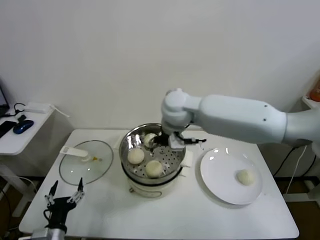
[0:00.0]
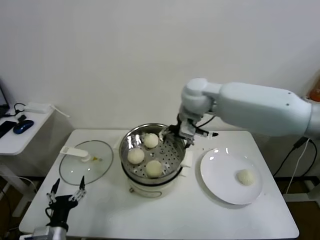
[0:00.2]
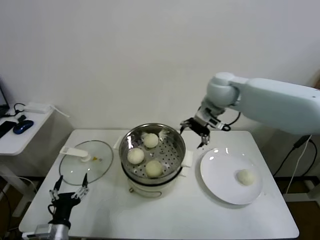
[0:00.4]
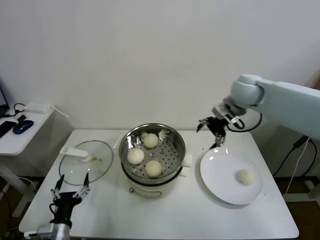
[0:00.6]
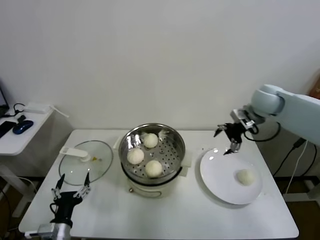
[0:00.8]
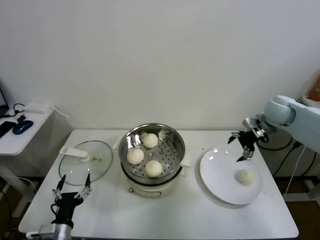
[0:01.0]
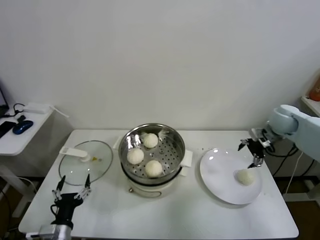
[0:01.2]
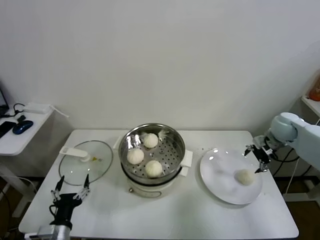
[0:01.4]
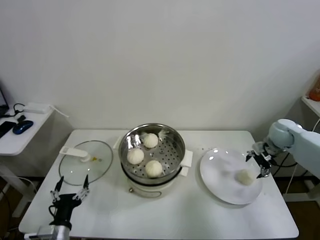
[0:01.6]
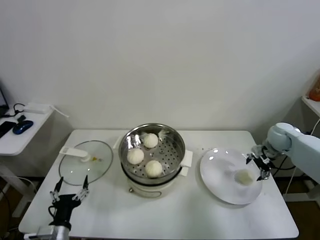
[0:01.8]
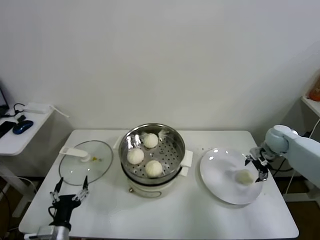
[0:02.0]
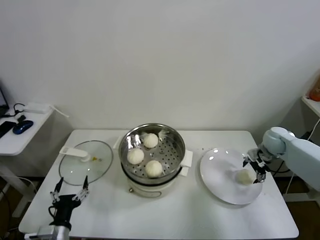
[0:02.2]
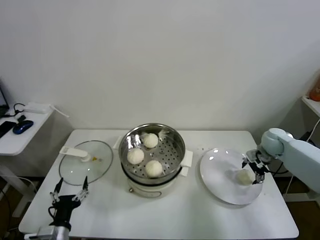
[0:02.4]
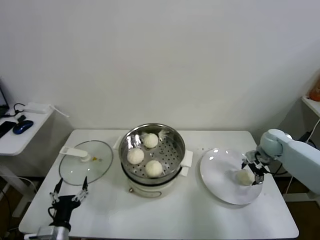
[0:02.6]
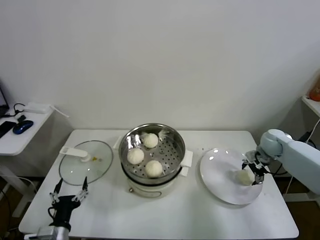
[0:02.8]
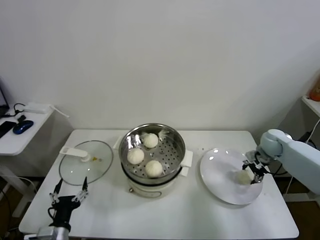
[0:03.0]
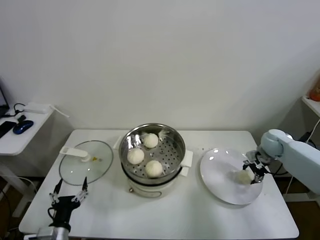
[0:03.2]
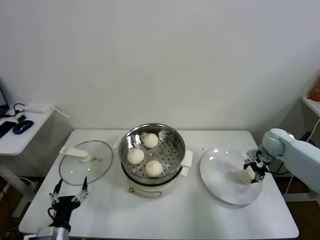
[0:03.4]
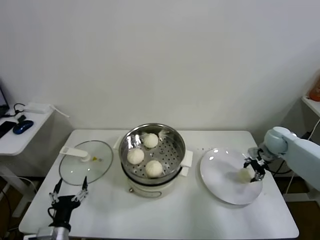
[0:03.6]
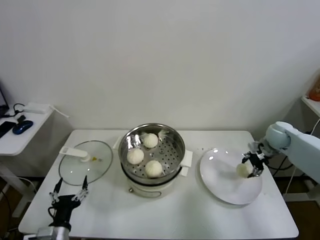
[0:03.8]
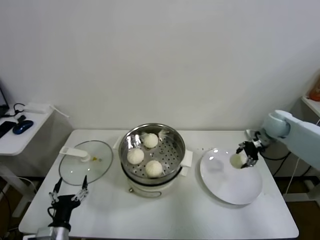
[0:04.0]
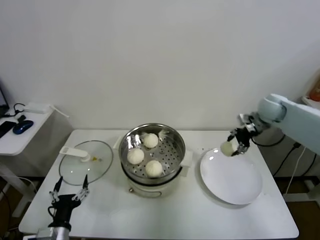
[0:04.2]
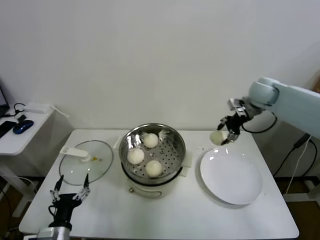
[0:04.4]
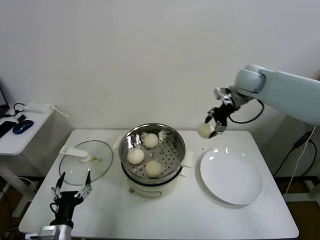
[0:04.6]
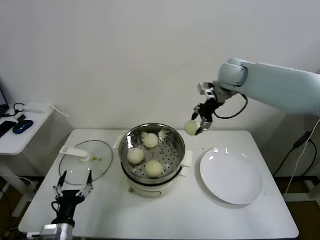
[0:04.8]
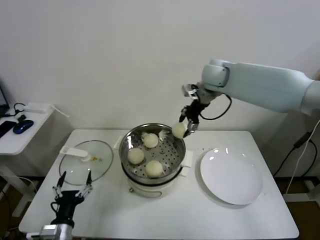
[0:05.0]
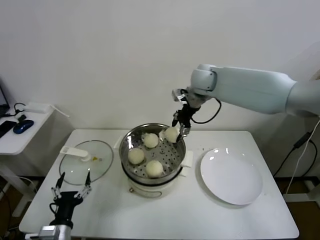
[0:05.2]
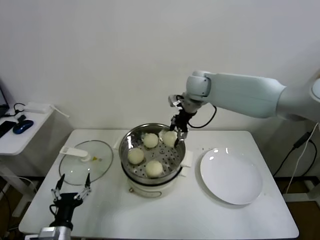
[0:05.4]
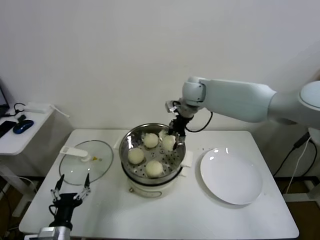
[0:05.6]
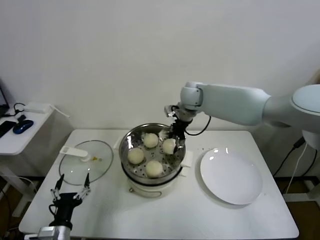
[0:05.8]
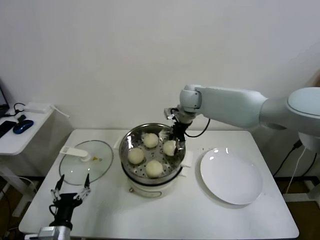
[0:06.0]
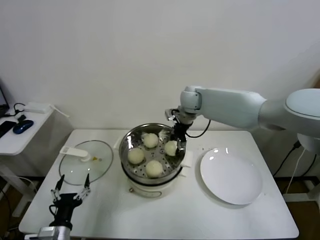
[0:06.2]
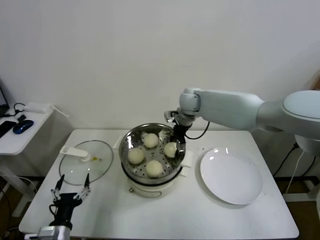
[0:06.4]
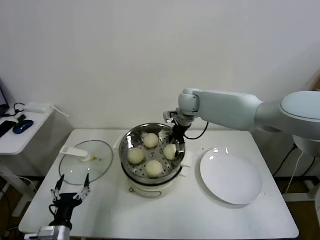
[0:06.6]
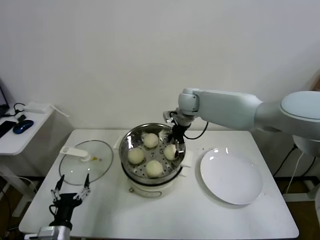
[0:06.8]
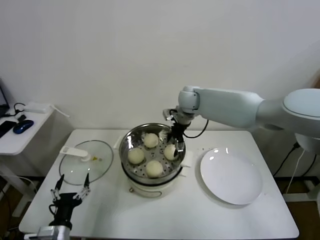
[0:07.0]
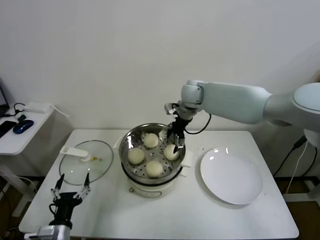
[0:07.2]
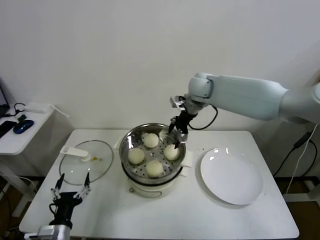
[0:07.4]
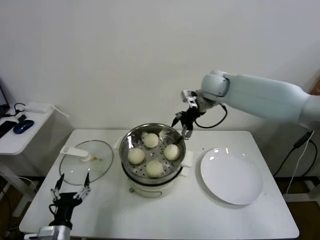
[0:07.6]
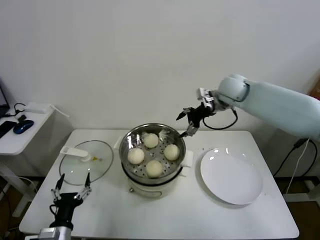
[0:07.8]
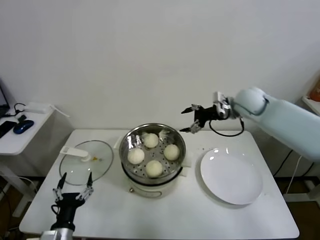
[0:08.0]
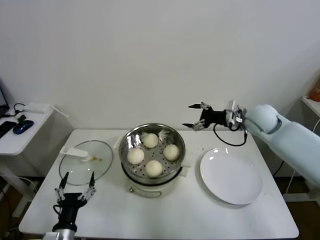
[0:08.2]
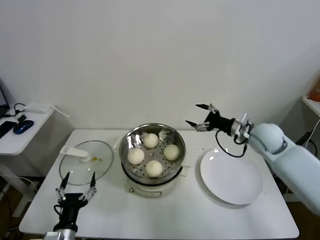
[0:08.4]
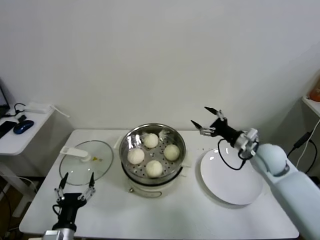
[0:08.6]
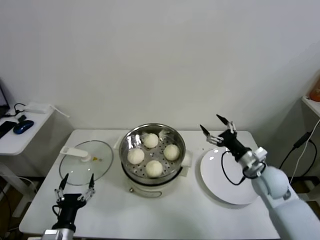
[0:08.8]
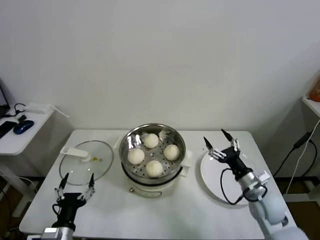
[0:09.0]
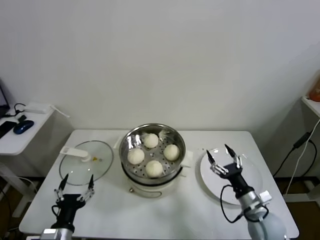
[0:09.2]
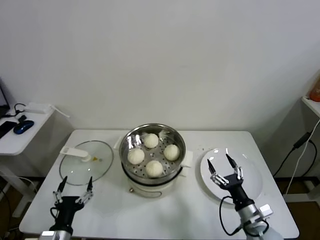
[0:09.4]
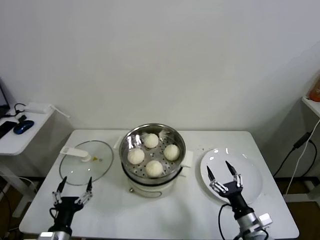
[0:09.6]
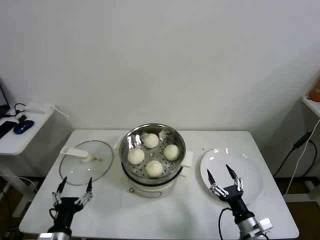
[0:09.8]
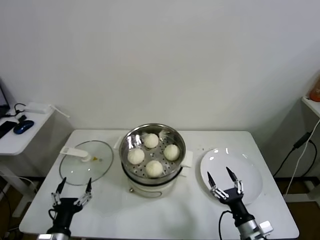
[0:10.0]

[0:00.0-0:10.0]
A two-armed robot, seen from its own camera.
Task of the whole recording: take steamed baozi put them in steamer.
Step, 0:00.0 to 0:03.2: Grasp the baozi in the plate with right gripper.
Step, 0:03.4 to 0:07.0: Place the baozi on the steamer with right gripper.
0:00.0 to 0:01.4: The right gripper heads to the right, covering approximately 40 cm.
0:01.4 to 0:02.8: The right gripper travels downward by about 10 cm.
0:02.8 to 0:04.2: The right gripper goes roughly 15 cm upward, and closes its fingers.
0:04.2 to 0:05.8: The right gripper travels to the left by approximately 30 cm.
0:05.8 to 0:07.2: The right gripper opens its fingers.
0:07.2 to 0:08.6: The right gripper is displaced to the right, backward and downward by some 30 cm.
0:08.6 to 0:10.0: The right gripper shifts some 30 cm backward and downward.

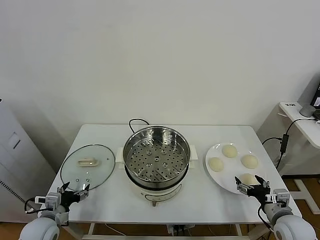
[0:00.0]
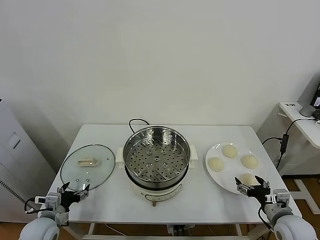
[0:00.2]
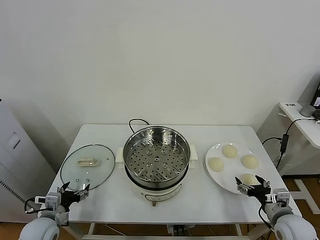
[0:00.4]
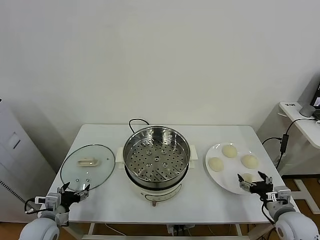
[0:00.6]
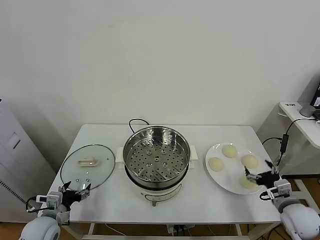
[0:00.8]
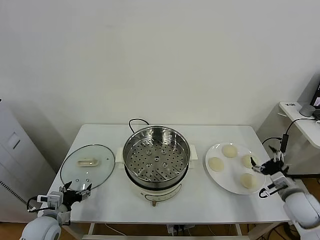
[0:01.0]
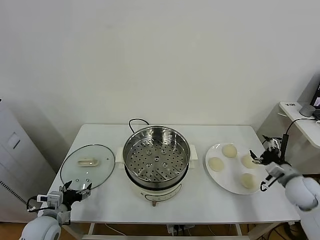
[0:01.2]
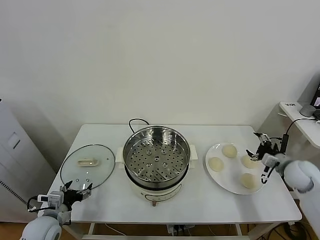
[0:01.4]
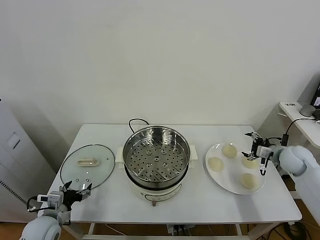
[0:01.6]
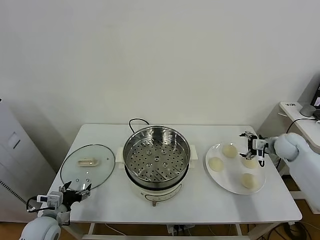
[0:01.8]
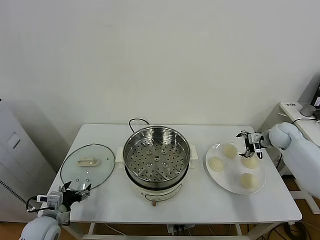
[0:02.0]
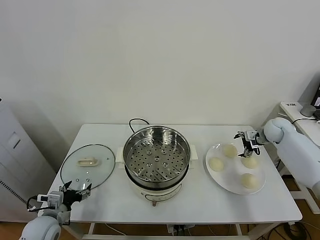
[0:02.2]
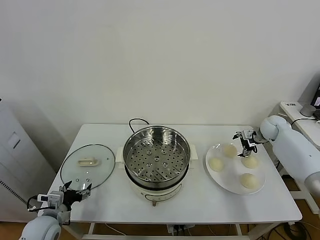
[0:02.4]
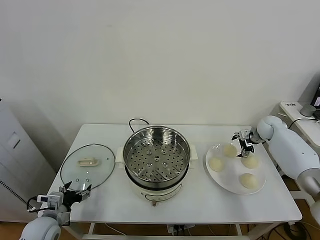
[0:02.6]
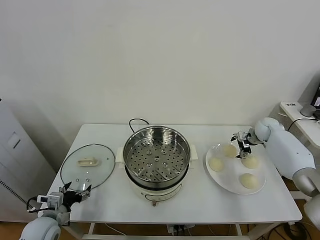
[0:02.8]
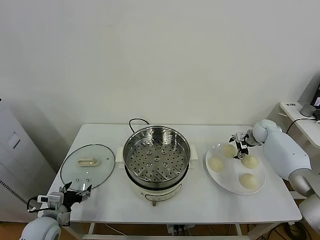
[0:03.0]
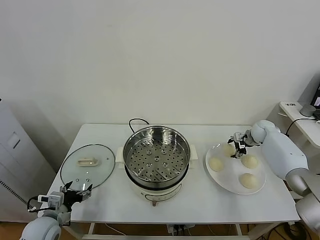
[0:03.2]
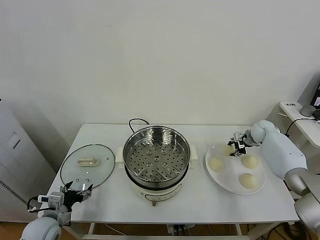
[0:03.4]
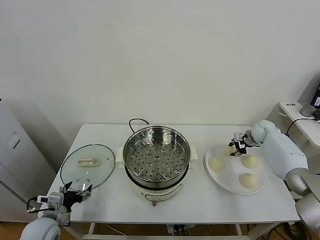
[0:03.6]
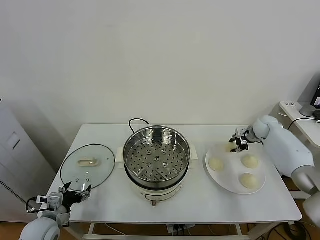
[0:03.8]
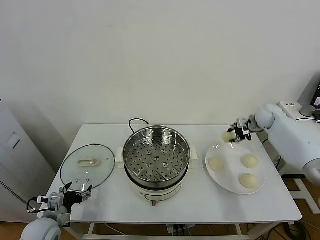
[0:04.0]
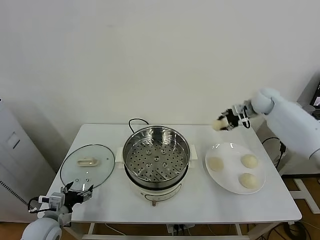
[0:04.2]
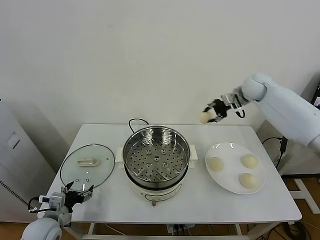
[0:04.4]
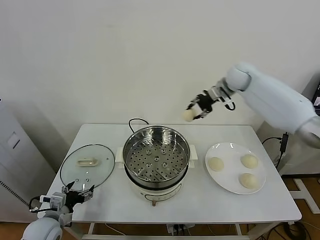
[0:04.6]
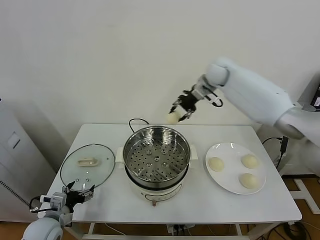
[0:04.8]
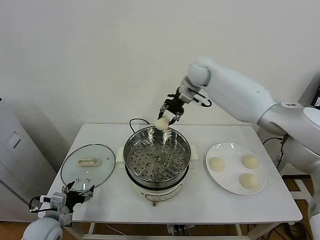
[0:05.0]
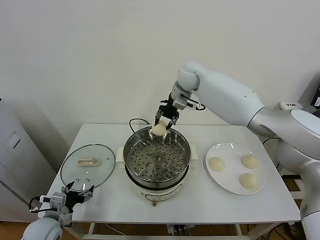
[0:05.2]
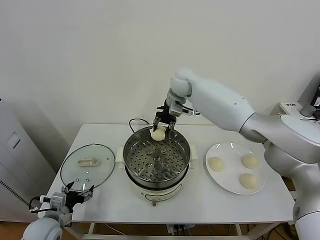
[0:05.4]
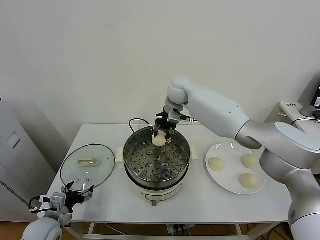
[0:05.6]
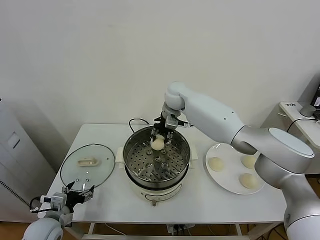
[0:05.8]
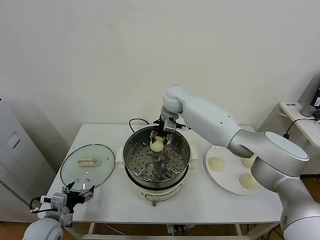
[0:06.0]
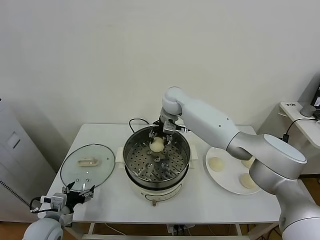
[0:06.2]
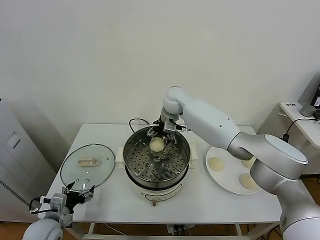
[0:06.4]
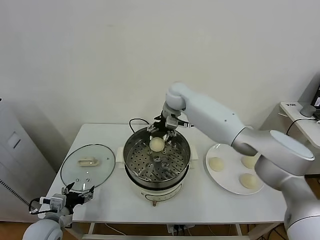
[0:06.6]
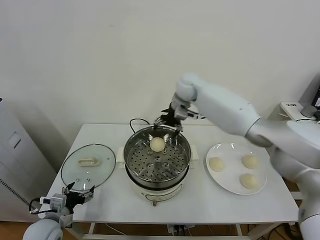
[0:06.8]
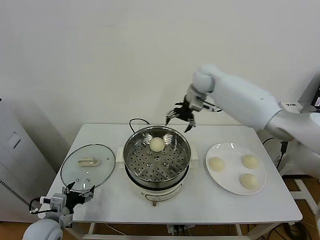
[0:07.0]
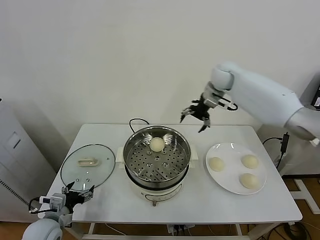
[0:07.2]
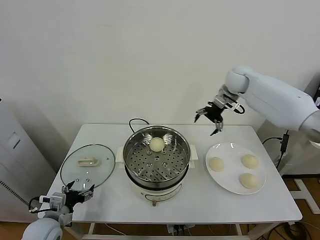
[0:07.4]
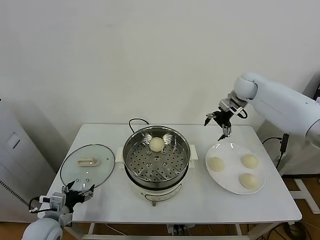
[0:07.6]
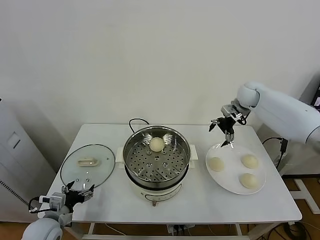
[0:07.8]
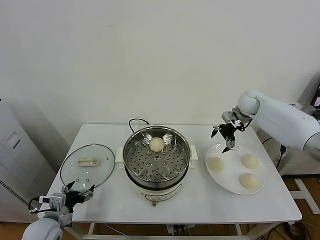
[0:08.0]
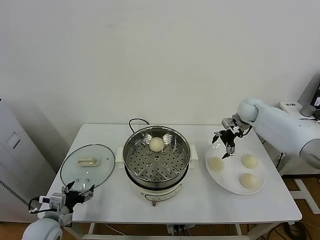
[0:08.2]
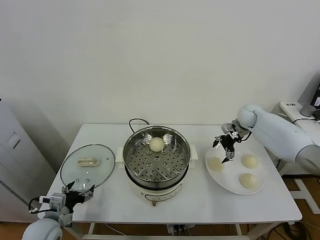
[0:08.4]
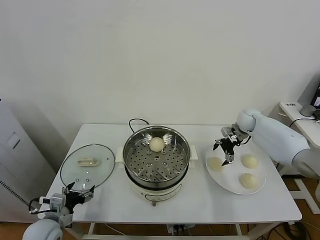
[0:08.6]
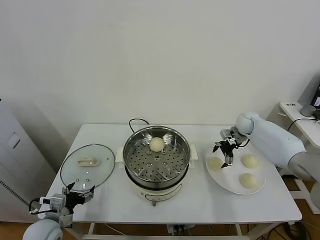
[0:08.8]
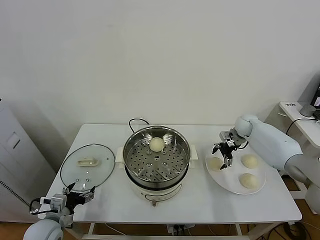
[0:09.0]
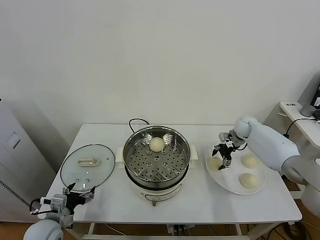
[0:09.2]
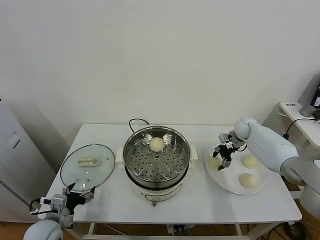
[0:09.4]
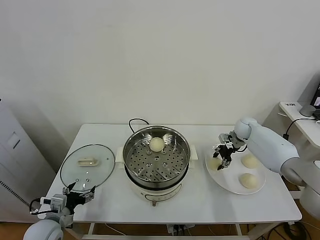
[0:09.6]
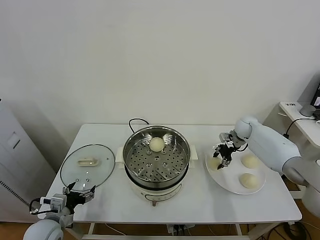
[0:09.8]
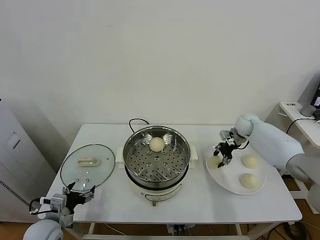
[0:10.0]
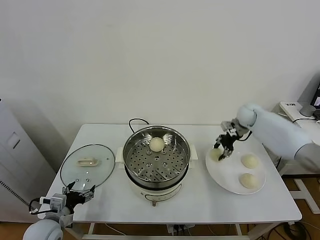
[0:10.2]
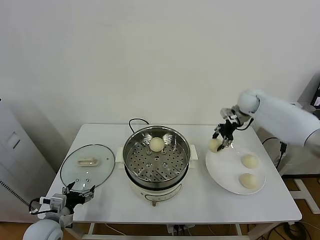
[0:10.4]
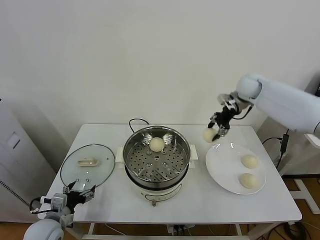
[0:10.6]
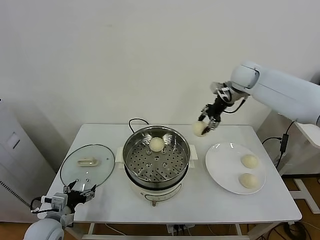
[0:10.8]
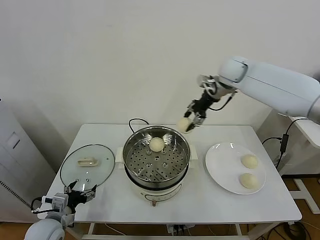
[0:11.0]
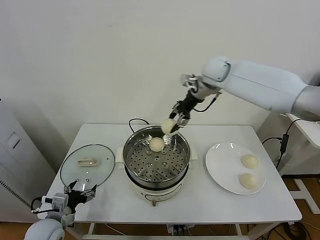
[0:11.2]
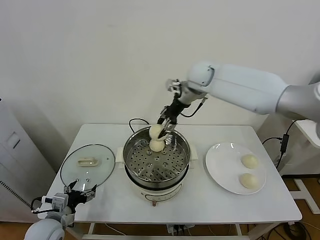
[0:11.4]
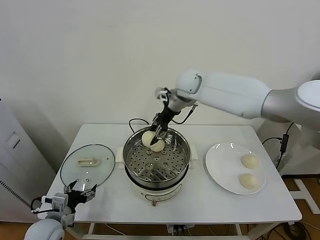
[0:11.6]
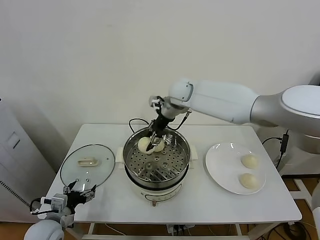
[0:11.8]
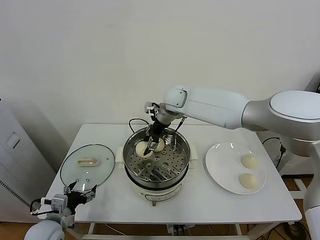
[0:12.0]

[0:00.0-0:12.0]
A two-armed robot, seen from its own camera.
Task of the whole recording: take steamed baozi put them in steamer.
Step, 0:00.0 to 0:03.4: Grasp the baozi in the plate with right gripper.
Step, 0:03.6 to 0:06.2: Place the baozi on the steamer with right gripper.
Step, 0:06.6 to 0:09.4: Grasp the baozi in the plate with right gripper.
0:01.6 to 0:03.0: The right gripper shifts approximately 15 cm forward.
0:03.0 to 0:04.4: The right gripper goes approximately 25 cm upward and to the left, and closes up.
0:04.4 to 0:06.0: The right gripper shifts some 25 cm to the left.
0:06.0 to 0:07.6: The right gripper is displaced to the right by about 25 cm, and opens its fingers.
0:07.6 to 0:09.0: The right gripper moves downward, some 15 cm.
0:09.0 to 0:10.4: The right gripper is displaced upward by roughly 15 cm, and closes up.
0:10.4 to 0:12.0: The right gripper travels to the left by about 30 cm.
